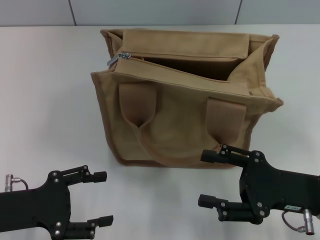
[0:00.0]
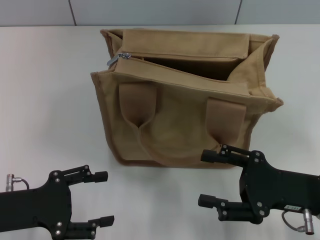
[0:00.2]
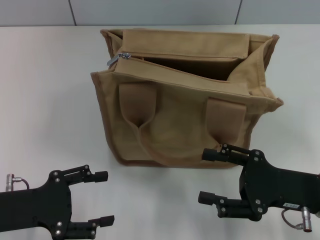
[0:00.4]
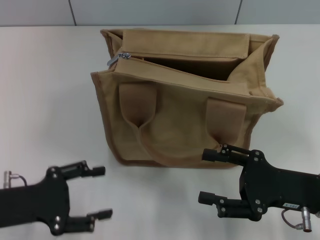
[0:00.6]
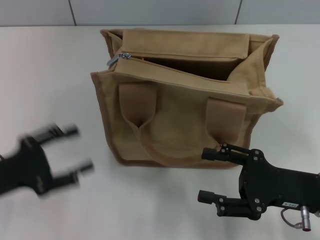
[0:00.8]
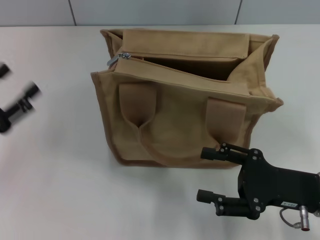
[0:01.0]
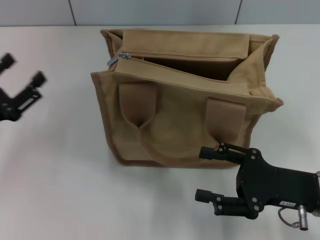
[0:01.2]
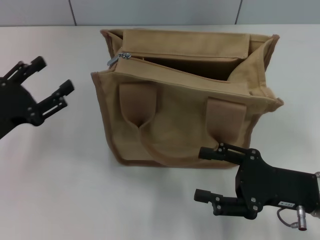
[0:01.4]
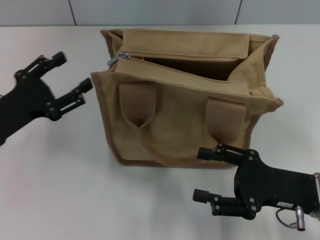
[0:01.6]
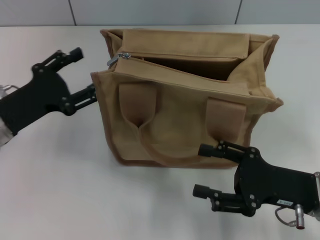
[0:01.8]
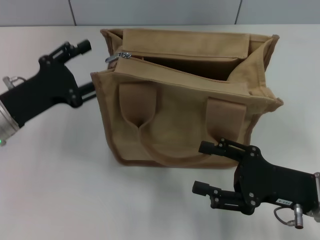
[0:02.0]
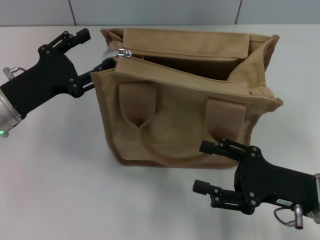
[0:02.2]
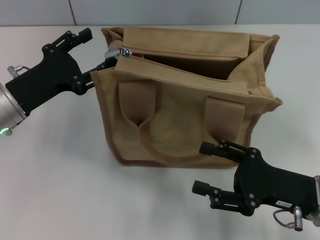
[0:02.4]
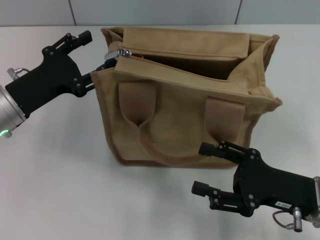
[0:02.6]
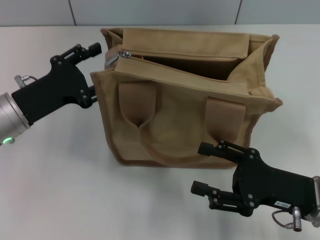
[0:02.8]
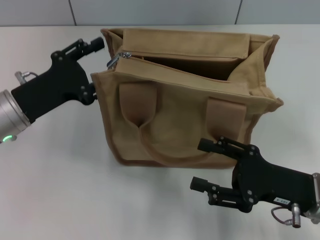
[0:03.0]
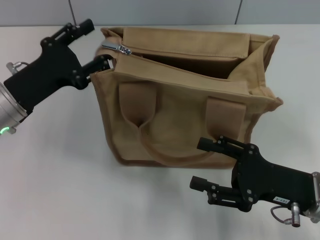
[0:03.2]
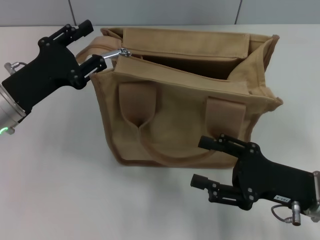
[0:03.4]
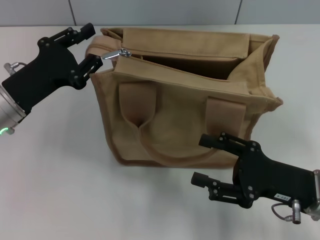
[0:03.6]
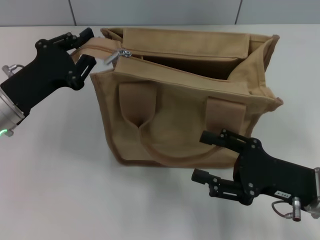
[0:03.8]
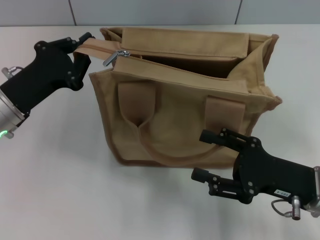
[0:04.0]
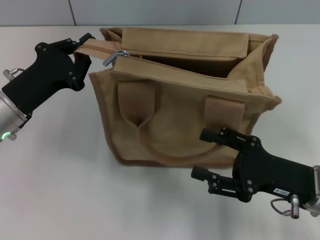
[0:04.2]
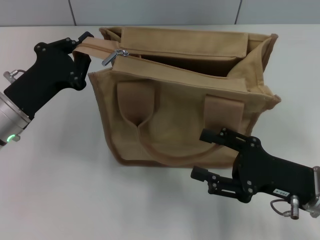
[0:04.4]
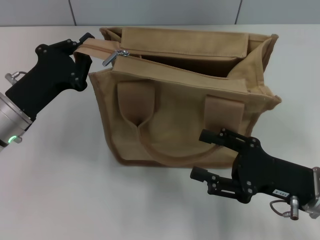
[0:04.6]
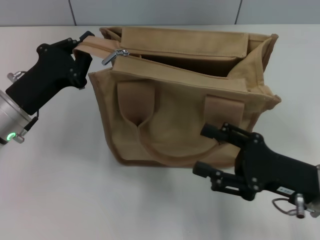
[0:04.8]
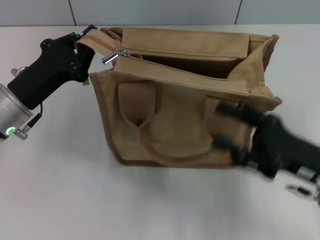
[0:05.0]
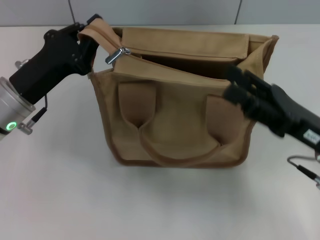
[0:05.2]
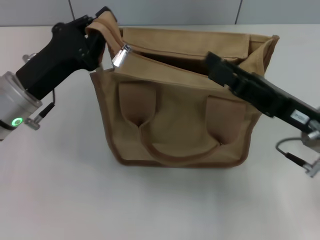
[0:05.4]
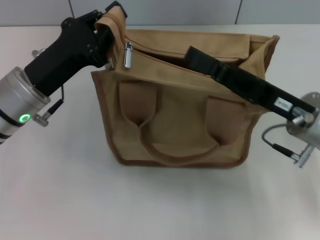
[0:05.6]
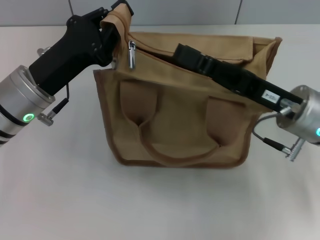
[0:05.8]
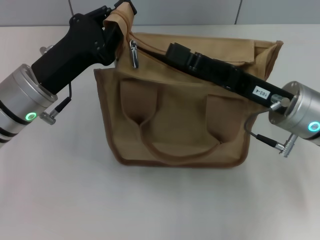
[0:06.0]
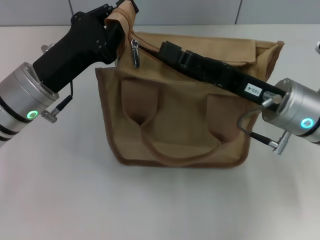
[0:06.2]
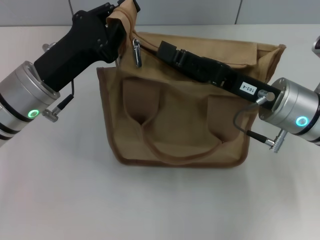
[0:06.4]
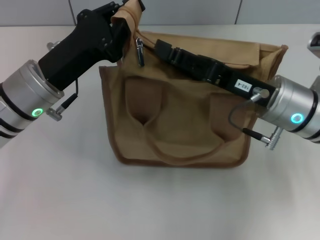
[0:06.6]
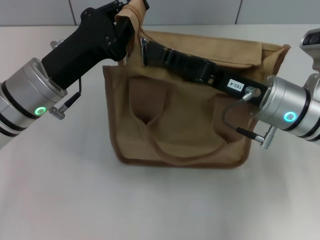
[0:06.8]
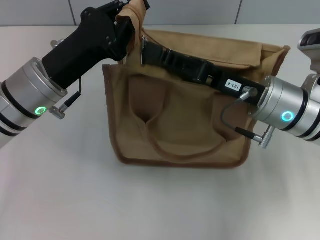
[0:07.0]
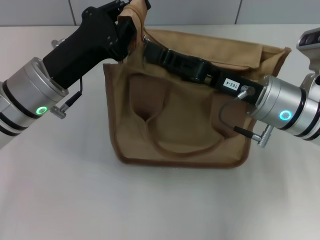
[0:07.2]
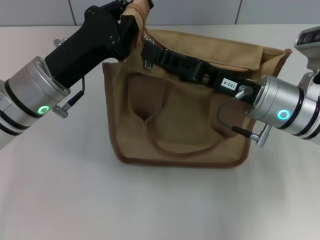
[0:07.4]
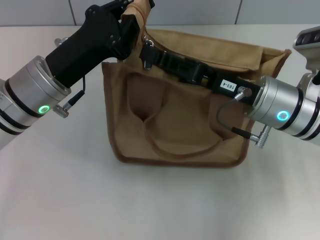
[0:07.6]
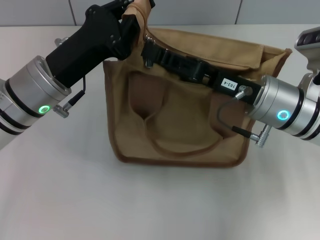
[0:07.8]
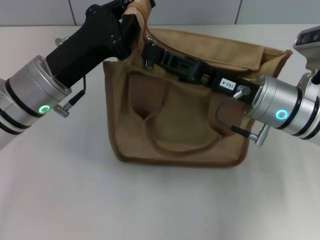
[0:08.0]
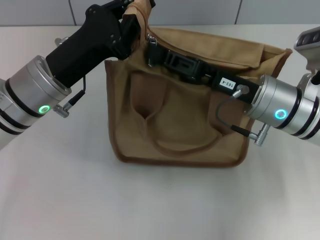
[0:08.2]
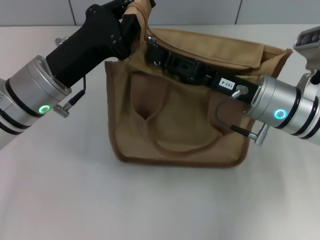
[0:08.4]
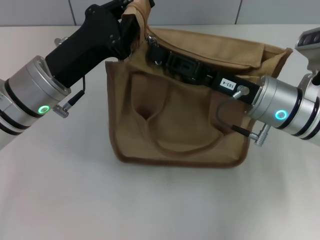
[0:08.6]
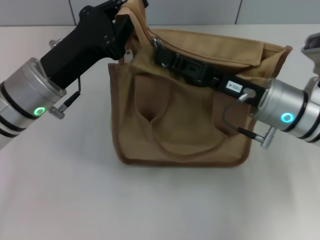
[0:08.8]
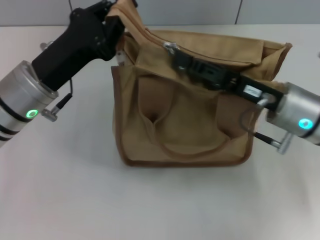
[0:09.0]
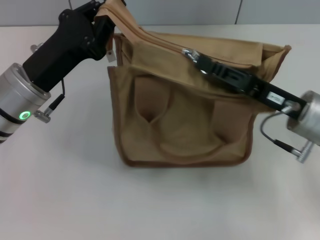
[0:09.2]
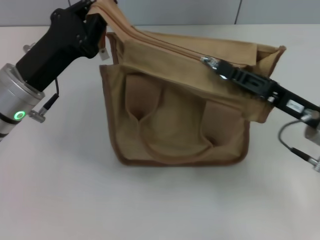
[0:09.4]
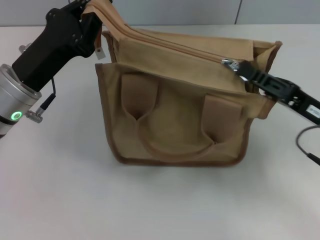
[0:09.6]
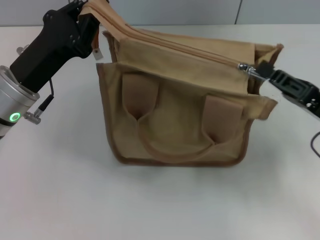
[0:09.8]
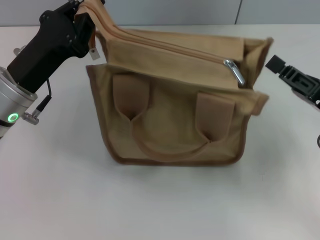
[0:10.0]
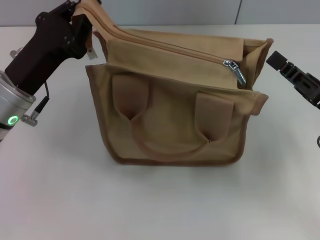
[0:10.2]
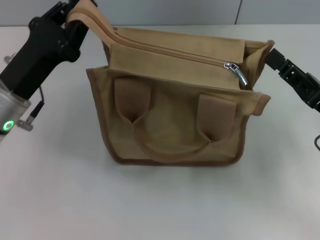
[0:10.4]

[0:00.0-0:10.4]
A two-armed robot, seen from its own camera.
Step, 0:00.0 to 0:10.2: Pull up the zipper with your right hand.
0:00.0 to 0:01.4: The left gripper heads forward, covering some 5 cm.
0:01.4 to 0:03.0: The left gripper travels to the right by roughly 5 cm.
0:03.0 to 0:04.4: The left gripper closes.
0:04.4 to 0:06.0: The left gripper changes place by roughly 5 cm. The right gripper heads forward and upward, covering approximately 10 cm.
0:06.0 to 0:07.4: The right gripper closes its fingers.
0:07.4 to 0:09.0: The right gripper closes its fingers.
0:09.0 to 0:10.4: The right gripper is displaced to the right and backward by some 10 cm.

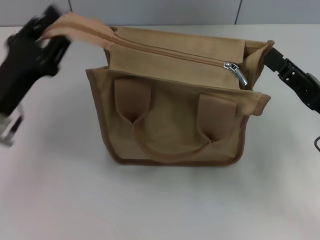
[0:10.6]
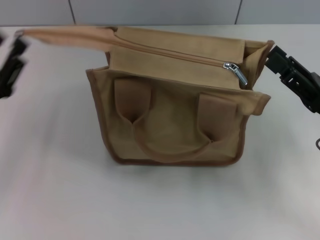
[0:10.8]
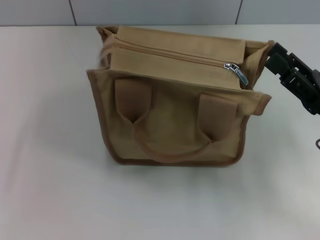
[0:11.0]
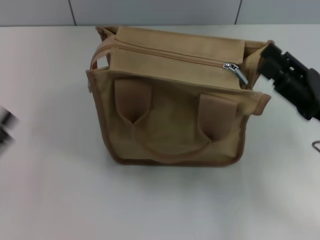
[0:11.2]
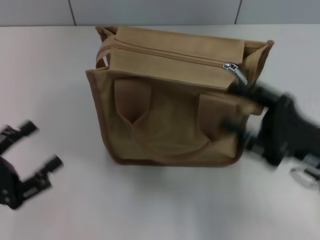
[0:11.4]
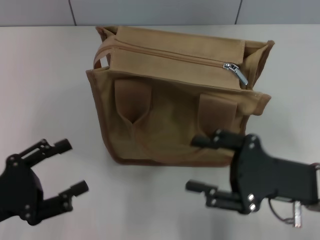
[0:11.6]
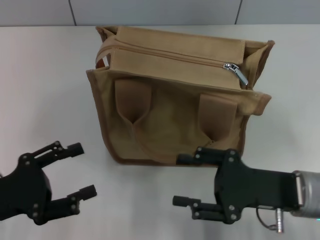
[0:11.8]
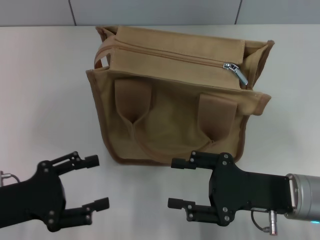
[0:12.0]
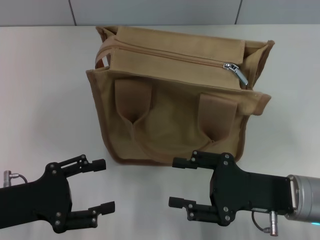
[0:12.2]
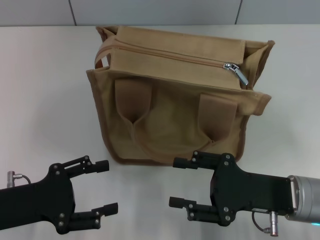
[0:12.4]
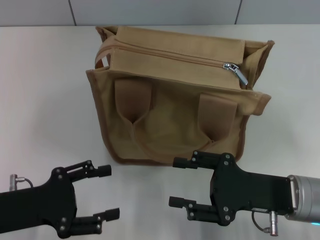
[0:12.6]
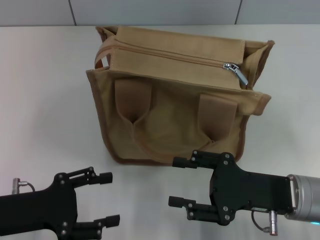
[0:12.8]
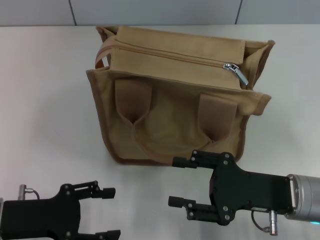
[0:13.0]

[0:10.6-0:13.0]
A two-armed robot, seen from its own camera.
0:10.6 to 0:11.8: The right gripper heads to the left, covering about 5 cm, and opens, while the left gripper goes approximately 10 cm backward, and opens.

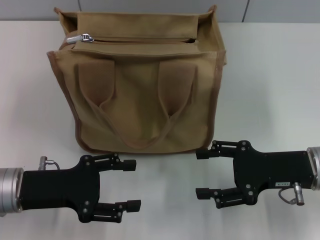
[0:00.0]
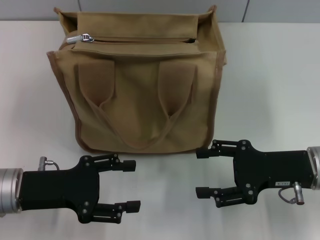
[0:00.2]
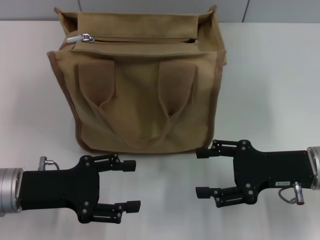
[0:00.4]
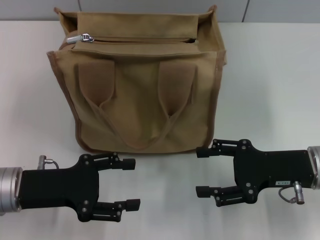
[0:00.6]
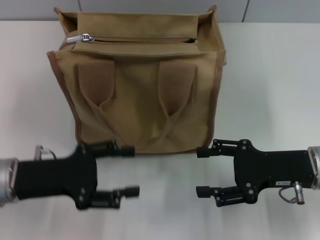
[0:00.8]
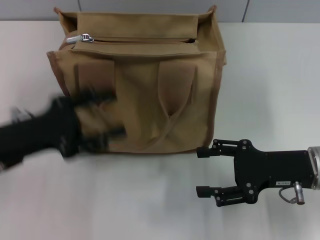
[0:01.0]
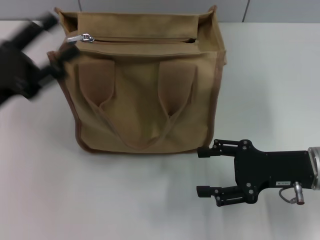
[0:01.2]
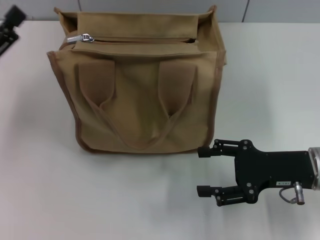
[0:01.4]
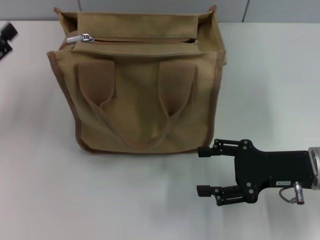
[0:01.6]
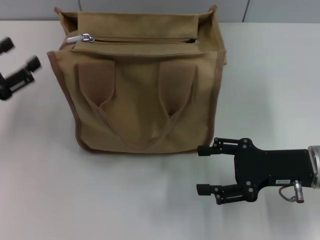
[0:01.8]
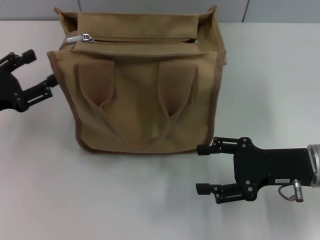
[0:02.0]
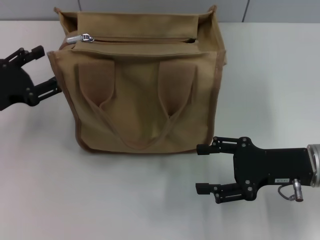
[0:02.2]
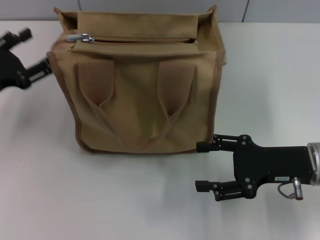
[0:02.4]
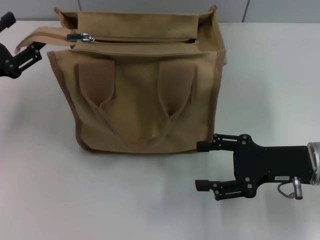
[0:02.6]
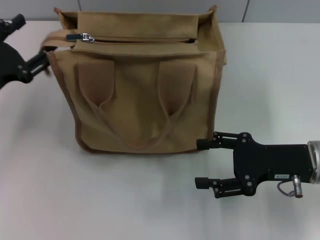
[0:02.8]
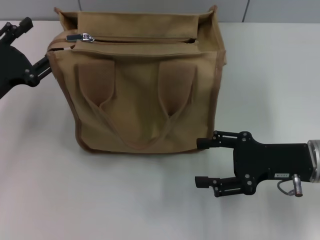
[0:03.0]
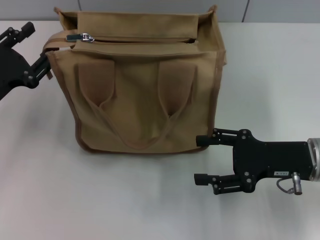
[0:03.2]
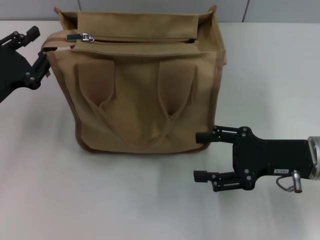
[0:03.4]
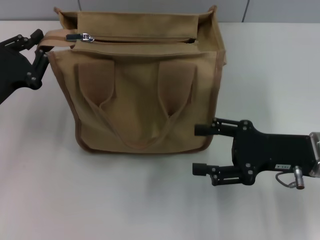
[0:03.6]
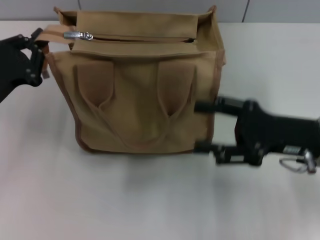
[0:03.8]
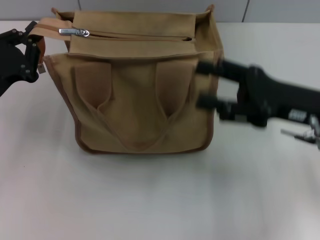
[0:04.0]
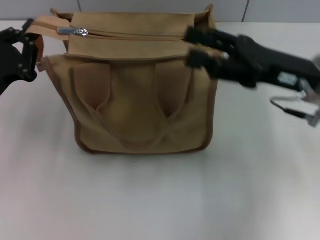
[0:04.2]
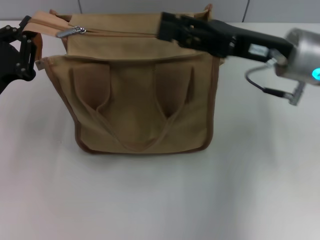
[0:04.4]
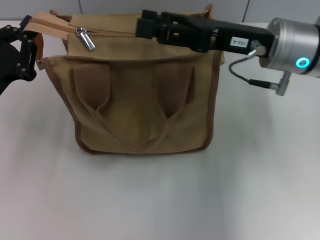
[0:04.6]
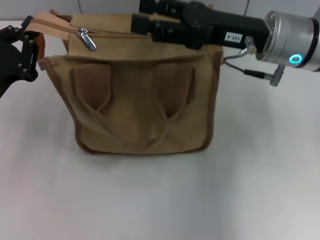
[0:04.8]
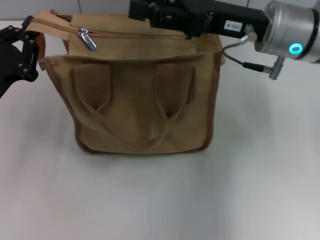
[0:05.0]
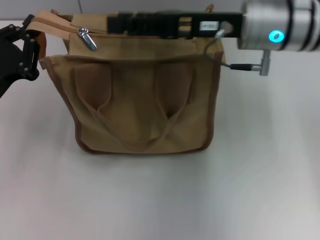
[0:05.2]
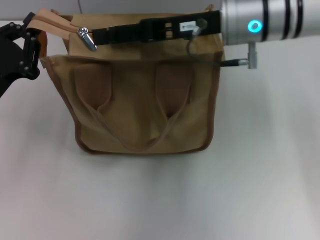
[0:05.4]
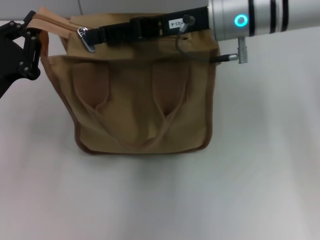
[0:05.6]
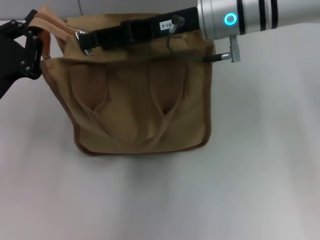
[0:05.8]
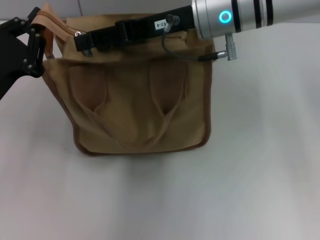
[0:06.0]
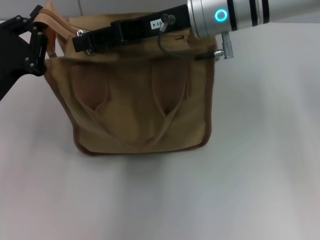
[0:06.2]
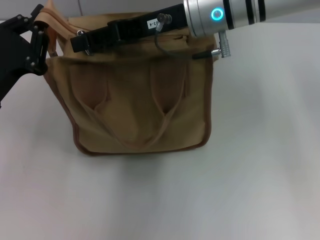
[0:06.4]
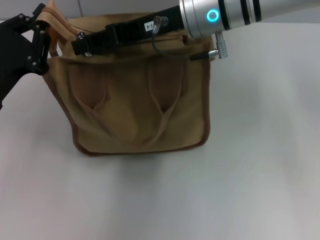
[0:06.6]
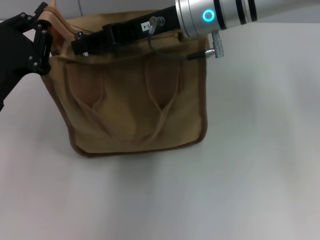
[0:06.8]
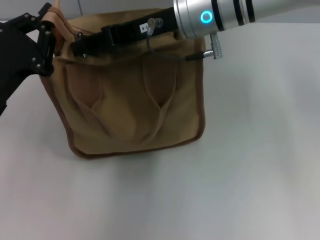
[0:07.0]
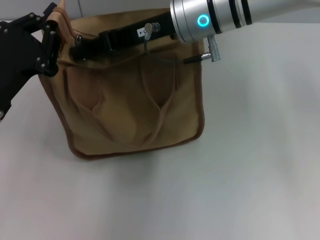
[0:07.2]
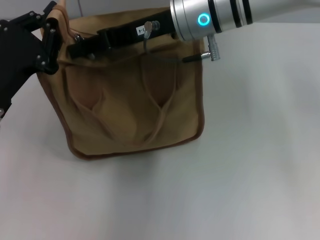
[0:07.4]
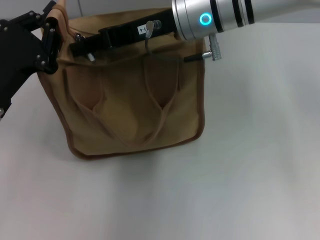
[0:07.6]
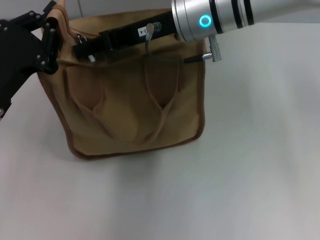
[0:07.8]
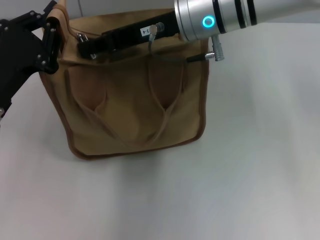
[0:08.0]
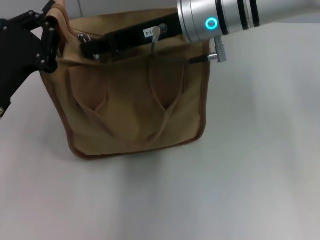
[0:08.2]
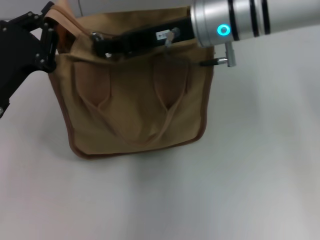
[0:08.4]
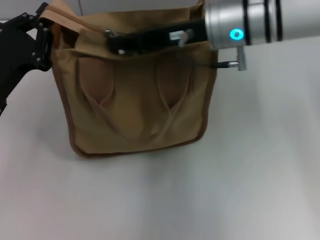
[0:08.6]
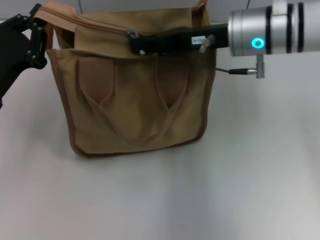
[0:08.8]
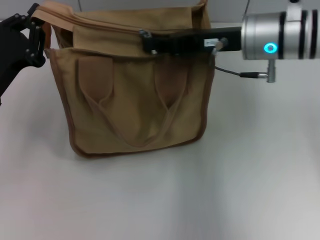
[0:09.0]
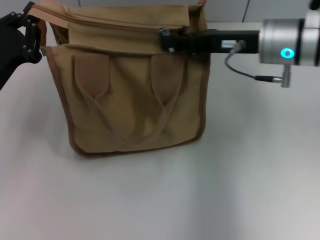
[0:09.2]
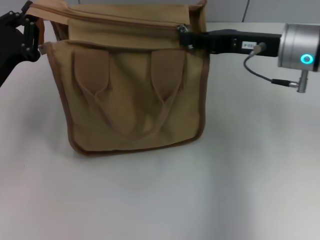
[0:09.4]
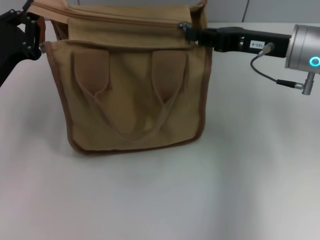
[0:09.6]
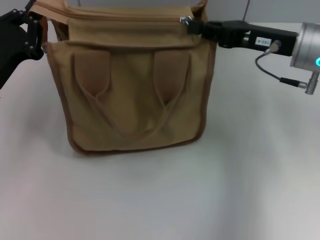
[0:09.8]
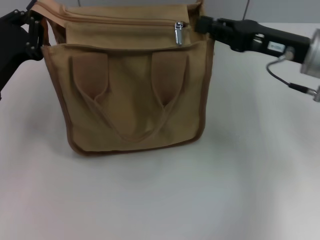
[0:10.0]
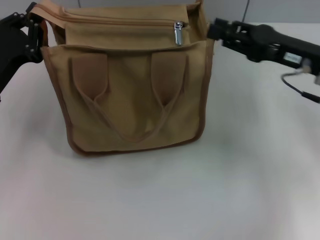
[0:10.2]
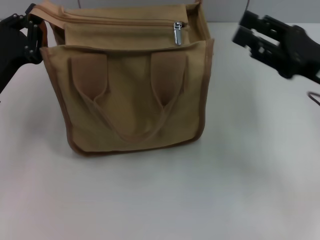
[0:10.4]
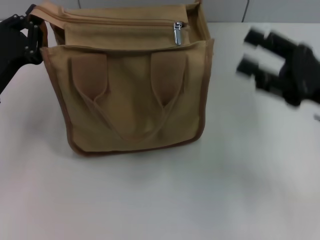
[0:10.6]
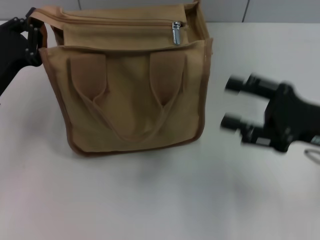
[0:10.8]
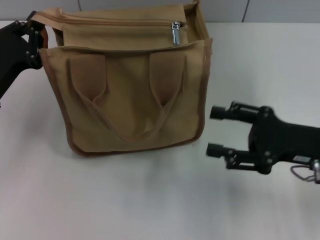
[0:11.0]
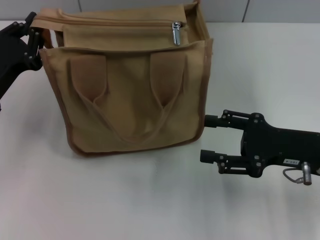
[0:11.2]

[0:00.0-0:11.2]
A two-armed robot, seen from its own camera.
Step, 0:00.0 to 0:09.8: Pull up the zipper with your right hand.
0:00.0 to 0:01.6: The left gripper heads to the left, covering approximately 10 cm.
0:01.6 to 0:03.2: The left gripper shifts by some 5 cm.
0:03.2 to 0:04.8: The right gripper travels upward, forward and to the left by approximately 15 cm, while the left gripper closes its fingers.
0:04.8 to 0:06.4: The right gripper shifts approximately 10 cm to the left.
0:06.4 to 0:08.0: The right gripper closes its fingers.
0:08.0 to 0:09.6: The right gripper goes some 15 cm to the right.
0:09.6 to 0:11.2: The right gripper moves backward and downward, some 15 cm, and opens up.
